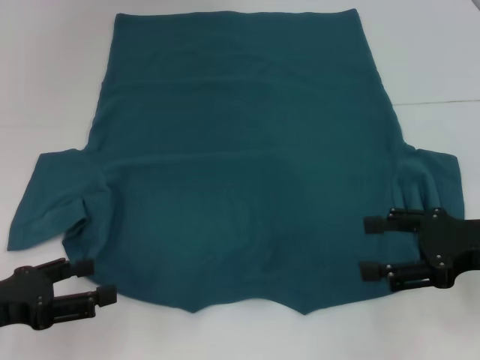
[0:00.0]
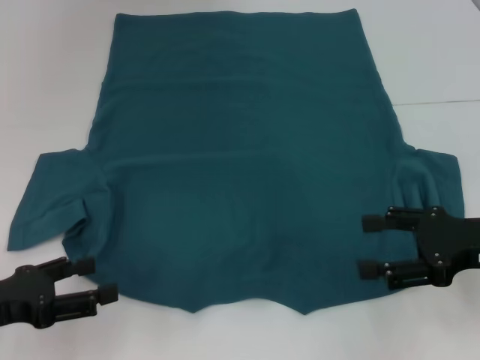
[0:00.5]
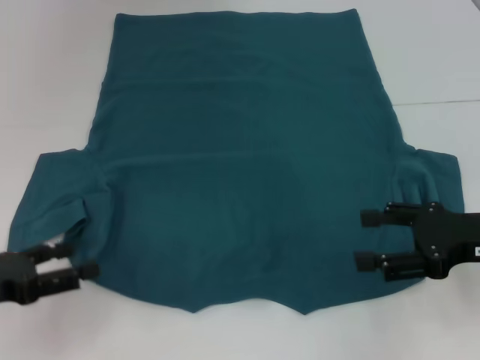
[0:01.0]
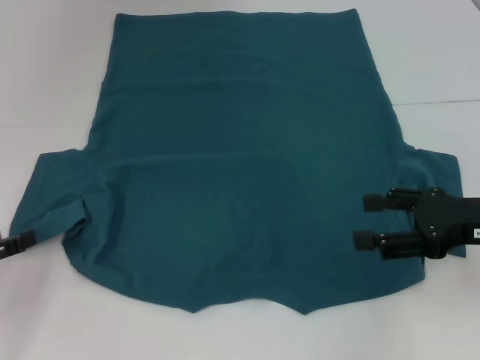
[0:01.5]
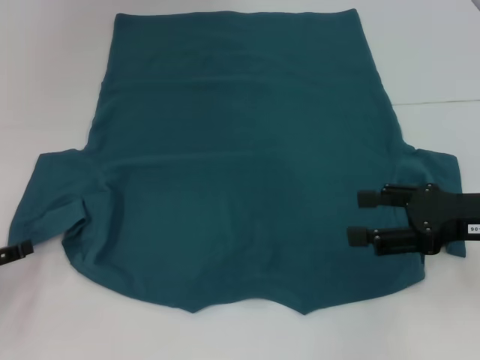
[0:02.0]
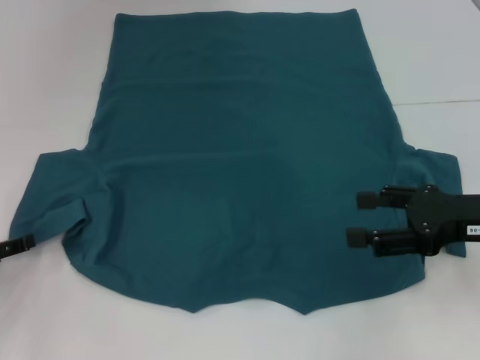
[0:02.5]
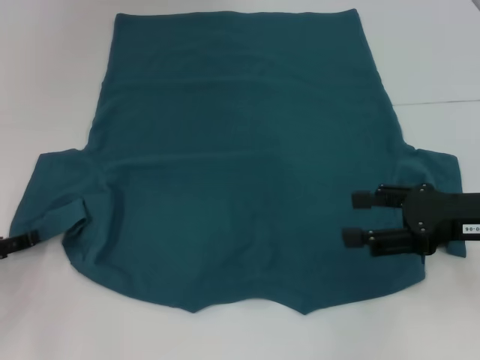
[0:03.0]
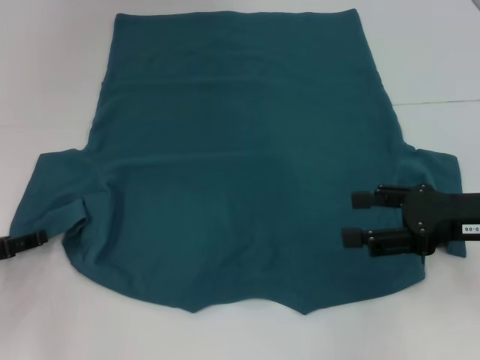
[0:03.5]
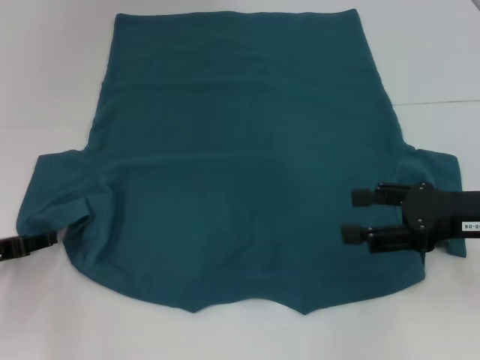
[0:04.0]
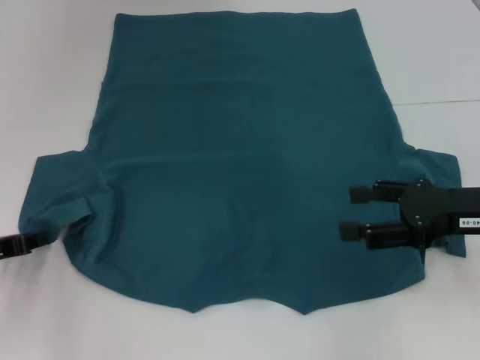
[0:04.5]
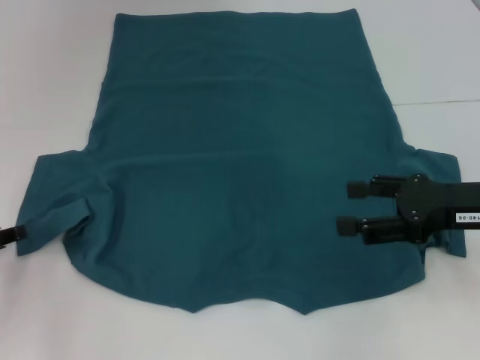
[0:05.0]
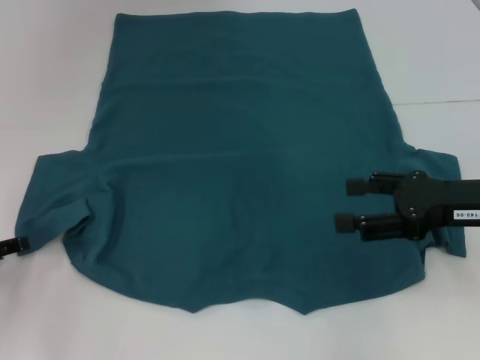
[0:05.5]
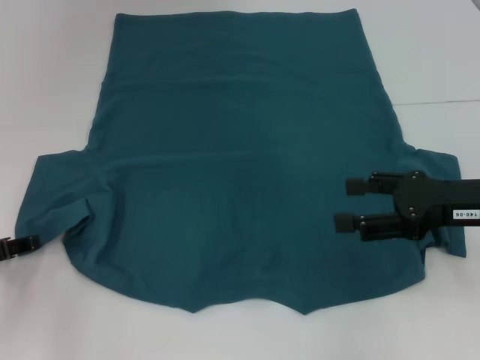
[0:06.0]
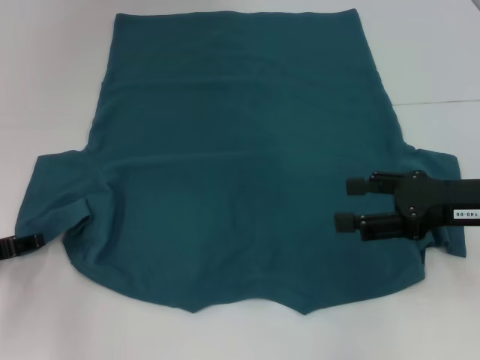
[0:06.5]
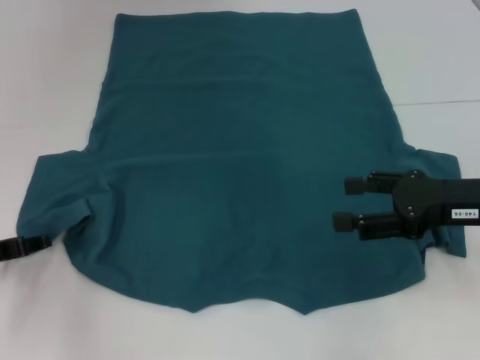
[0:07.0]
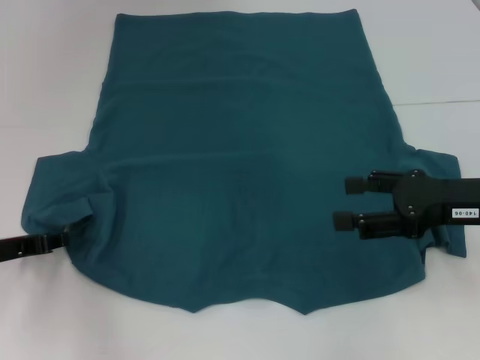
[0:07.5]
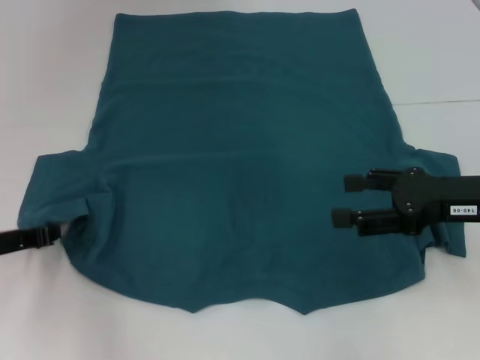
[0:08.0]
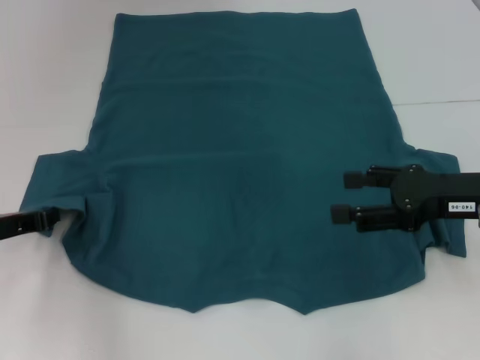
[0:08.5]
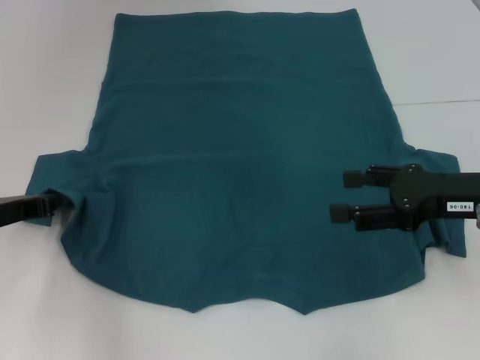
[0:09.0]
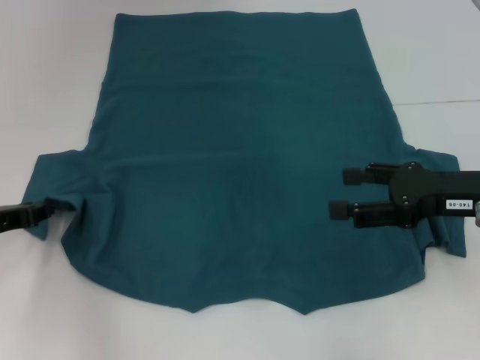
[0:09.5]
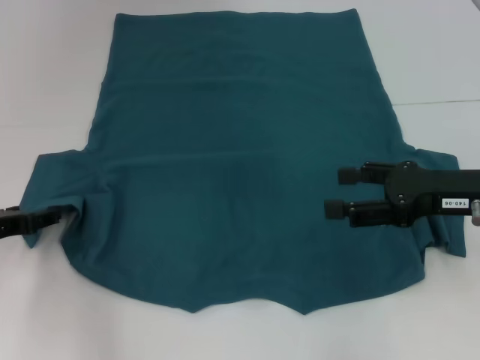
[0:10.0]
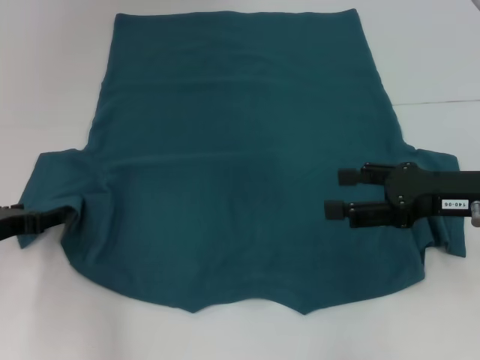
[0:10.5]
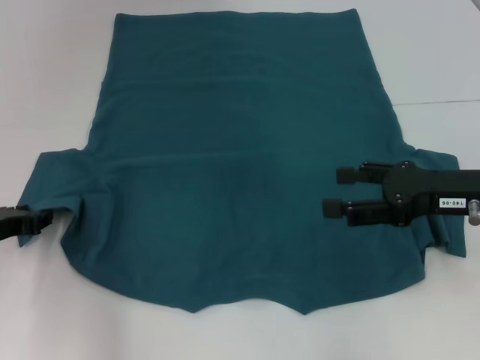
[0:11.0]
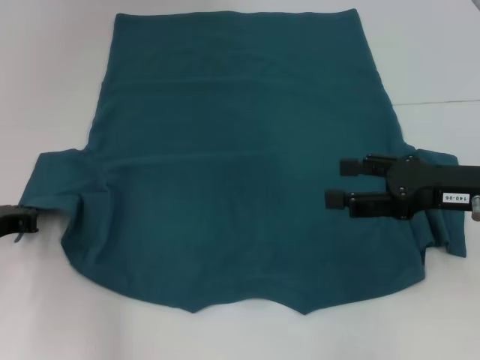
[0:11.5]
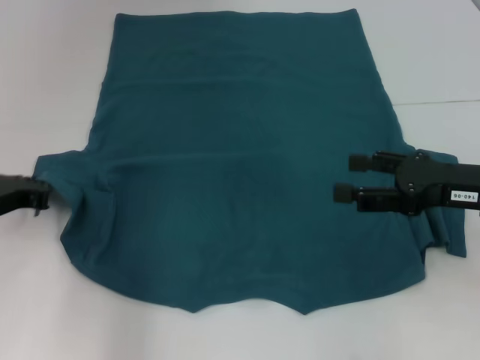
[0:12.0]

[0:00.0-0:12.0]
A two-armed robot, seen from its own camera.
0:00.0 to 0:02.0: The left gripper ends up roughly 5 cm from where it was.
0:02.0 to 0:04.0: The grippers stay close to where they were, moving slightly.
0:06.0 to 0:08.0: The left gripper closes its fingers.
0:08.0 to 0:10.0: The left gripper opens.
0:10.0 to 0:12.0: The left gripper closes its fingers.

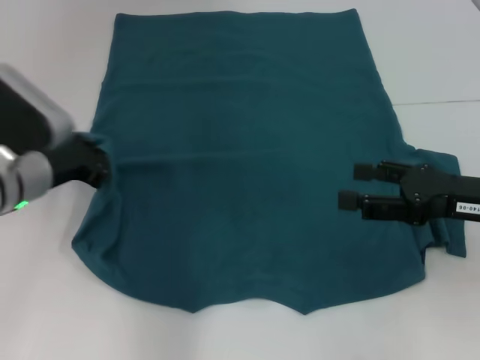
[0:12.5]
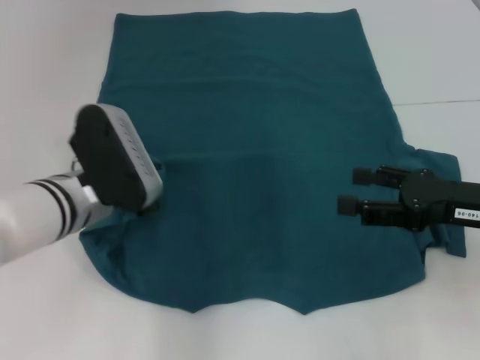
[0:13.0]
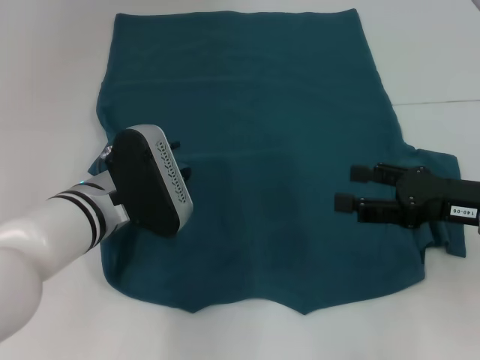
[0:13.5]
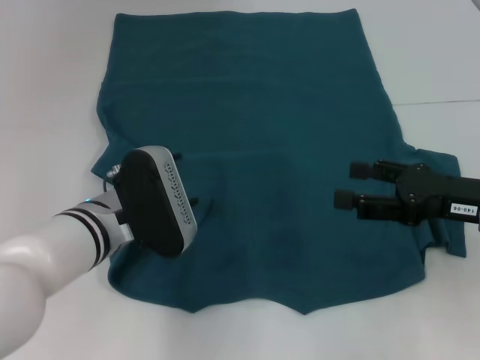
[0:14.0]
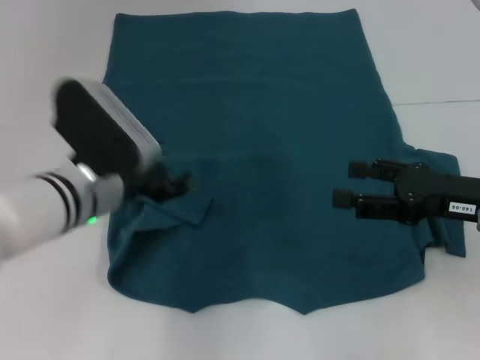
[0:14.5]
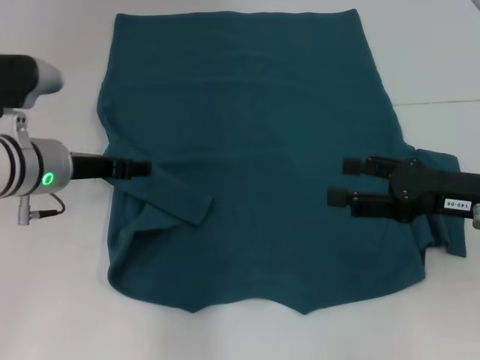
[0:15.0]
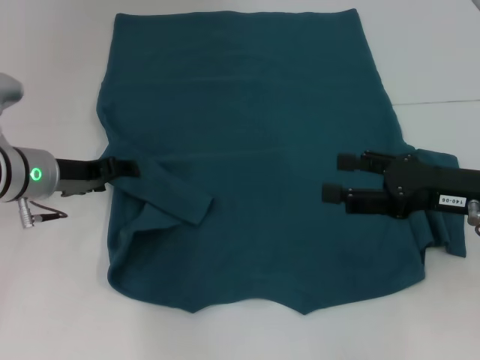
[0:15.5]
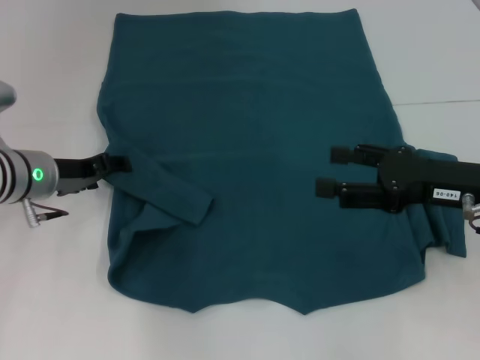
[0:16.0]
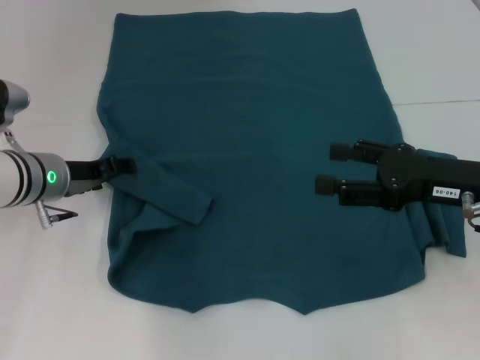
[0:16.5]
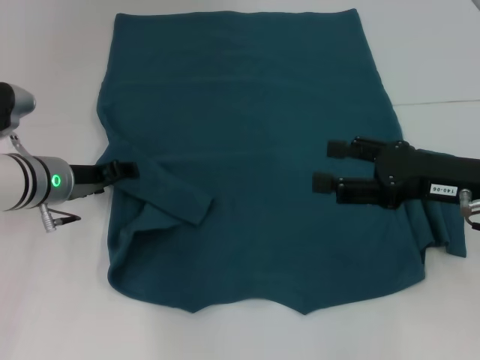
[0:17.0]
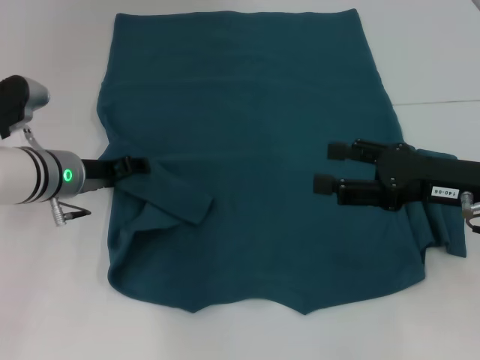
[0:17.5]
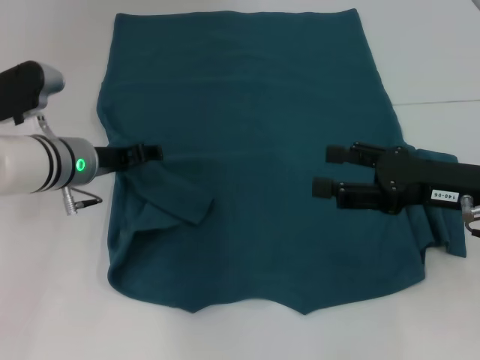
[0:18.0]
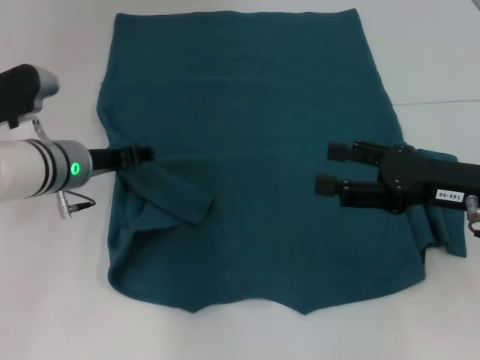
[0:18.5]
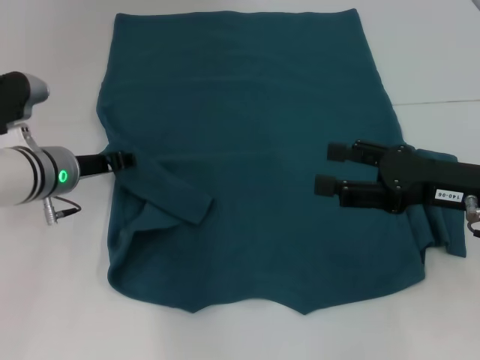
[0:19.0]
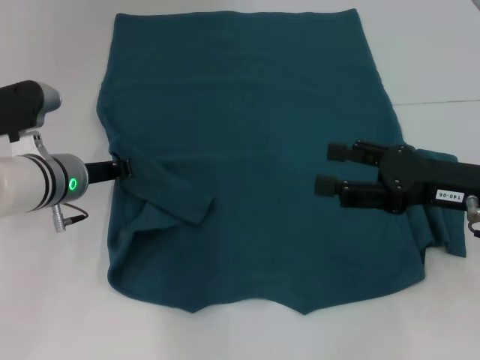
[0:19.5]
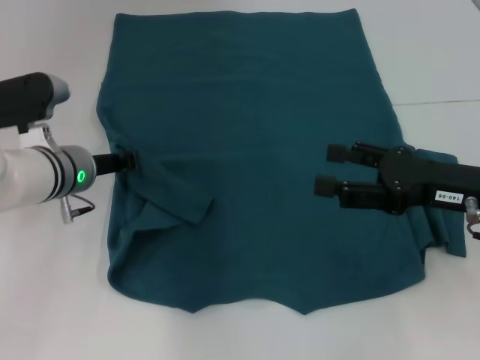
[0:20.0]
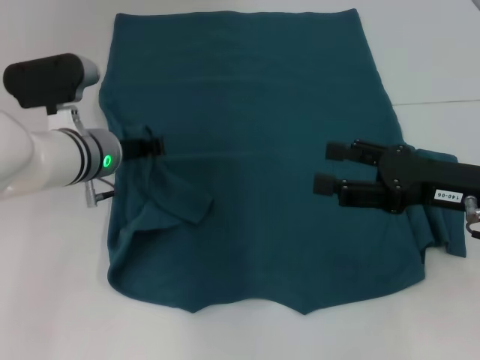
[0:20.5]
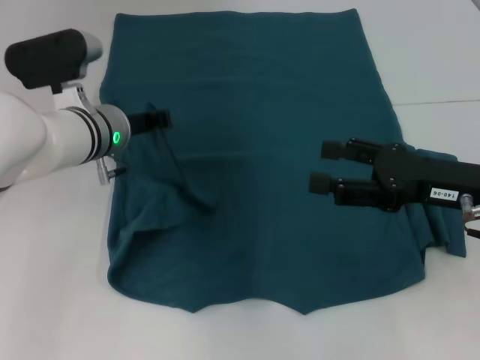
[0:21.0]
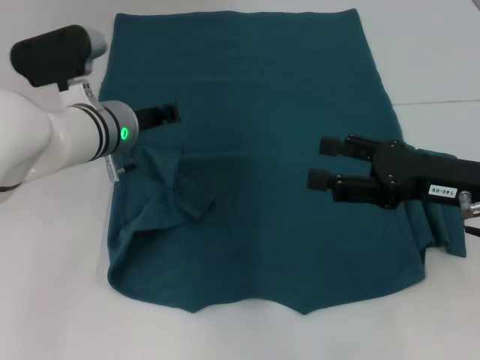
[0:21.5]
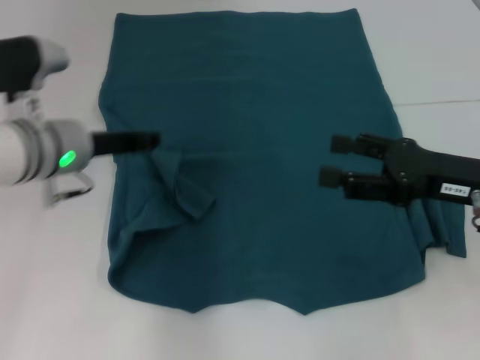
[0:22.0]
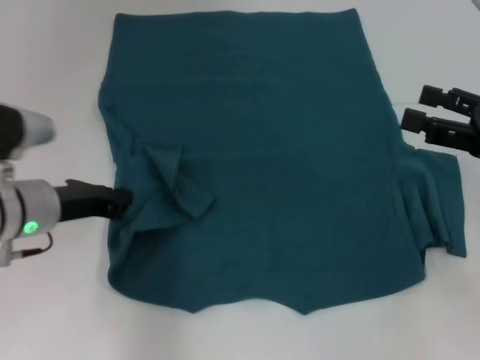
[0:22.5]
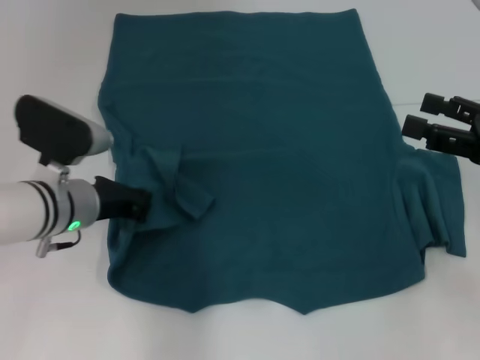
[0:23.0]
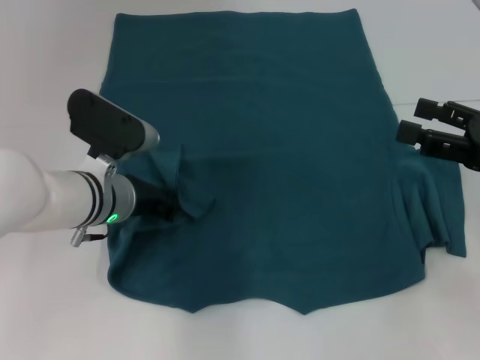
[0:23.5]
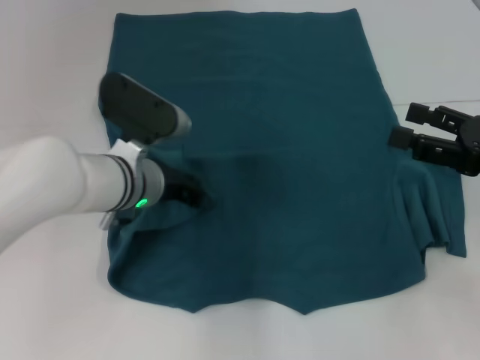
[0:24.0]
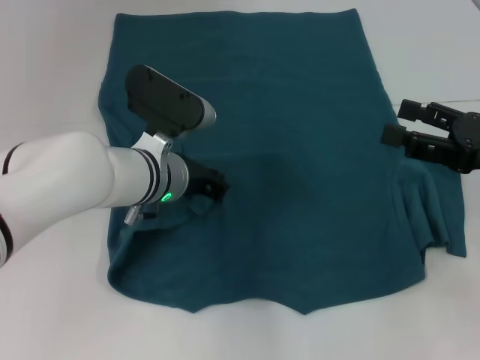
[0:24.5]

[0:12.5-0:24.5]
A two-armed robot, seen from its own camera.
Step, 0:12.5 to 0:22.0: Fold the bottom left sleeve with your left hand.
0:12.5 to 0:14.5: The left gripper travels to the right by some 5 cm, and opens.
0:14.5 to 0:16.5: The left gripper is displaced forward and to the left by some 10 cm.
0:16.5 to 0:18.5: The grippers stay close to where they were, moving slightly.
0:18.5 to 0:20.5: The left gripper closes up.
0:20.5 to 0:22.5: The right gripper heads to the right, covering roughly 5 cm; the left gripper travels backward and to the left by roughly 10 cm.
0:22.5 to 0:24.5: The left gripper goes roughly 15 cm to the right.

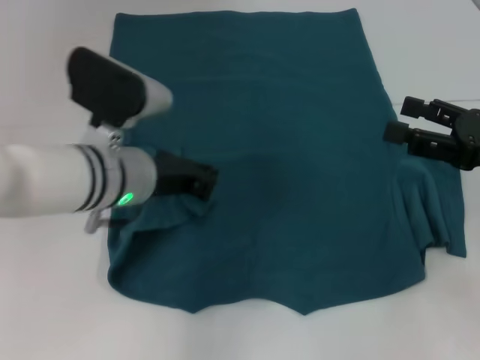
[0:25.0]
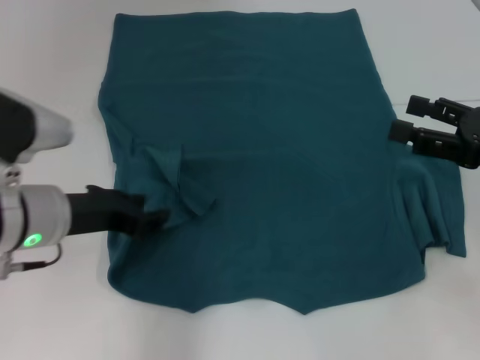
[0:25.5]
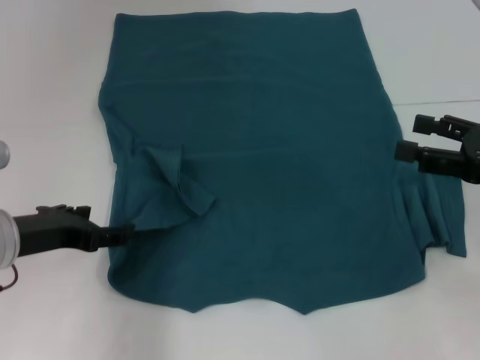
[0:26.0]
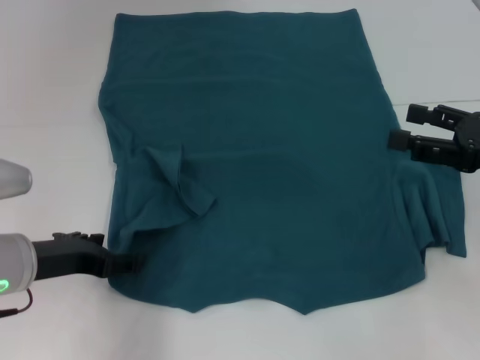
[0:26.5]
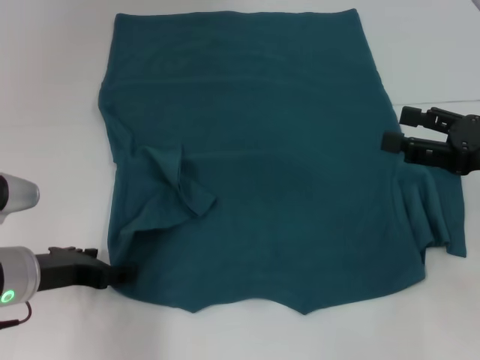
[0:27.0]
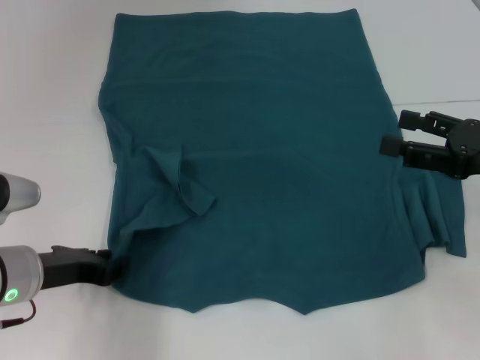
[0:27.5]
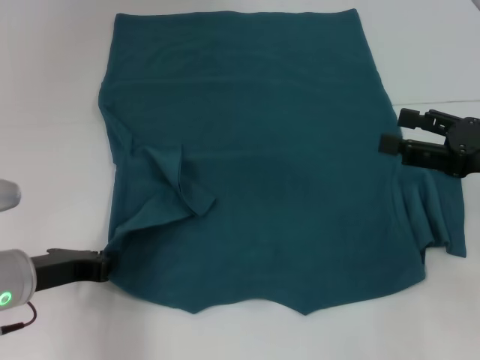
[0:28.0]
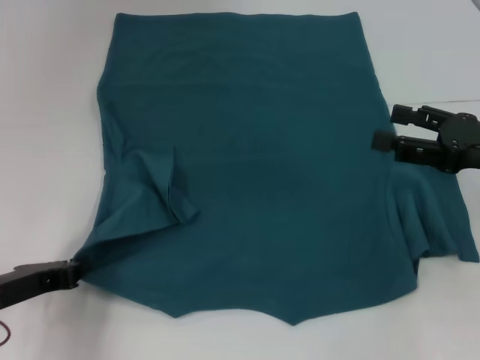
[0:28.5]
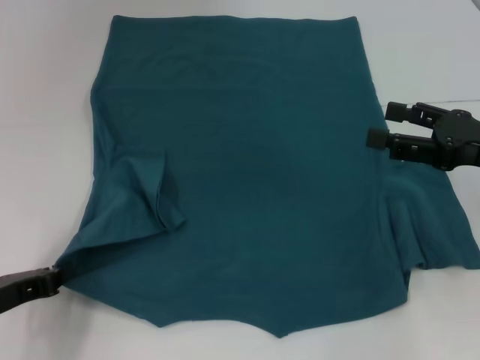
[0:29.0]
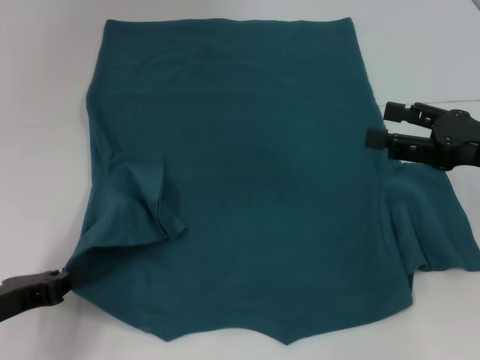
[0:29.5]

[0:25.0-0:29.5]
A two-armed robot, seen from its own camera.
0:25.0 to 0:27.0: The left gripper shifts about 15 cm to the left, downward and backward, and opens.
0:27.0 to 0:29.5: The left gripper shifts approximately 10 cm backward and to the left, and closes its fingers.
